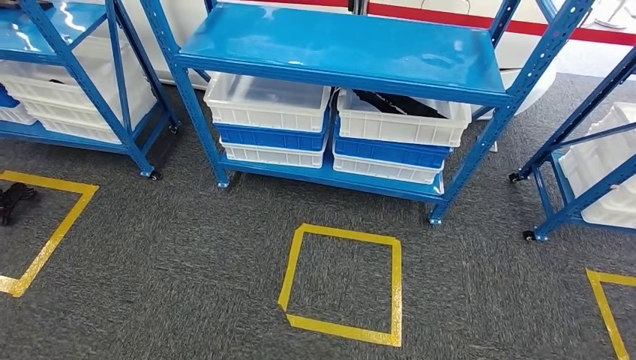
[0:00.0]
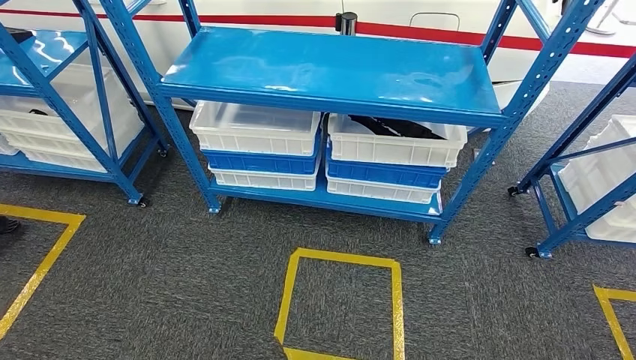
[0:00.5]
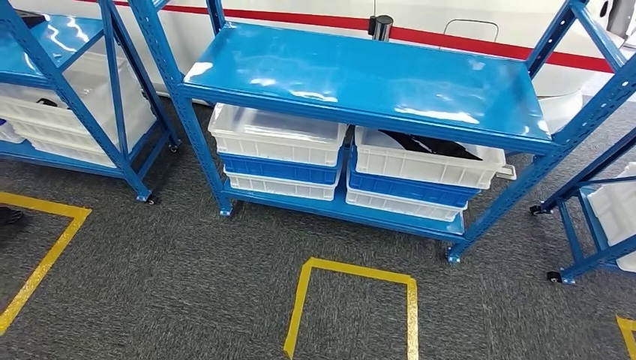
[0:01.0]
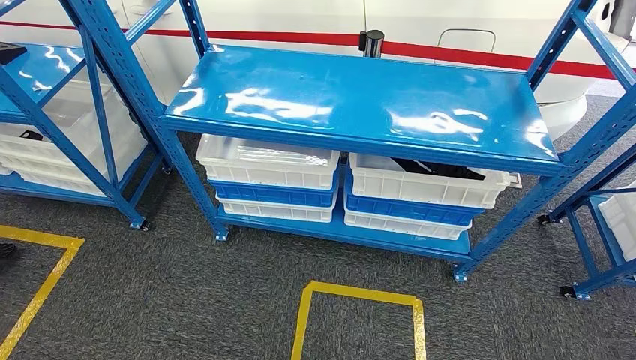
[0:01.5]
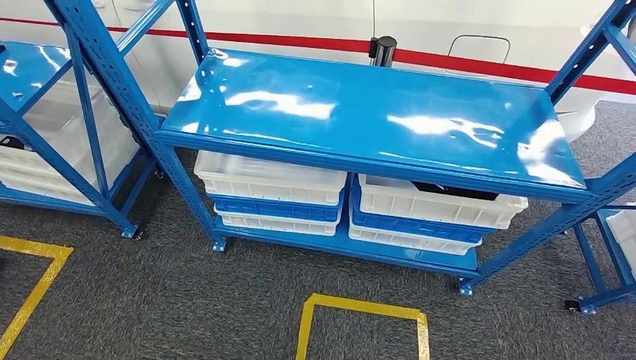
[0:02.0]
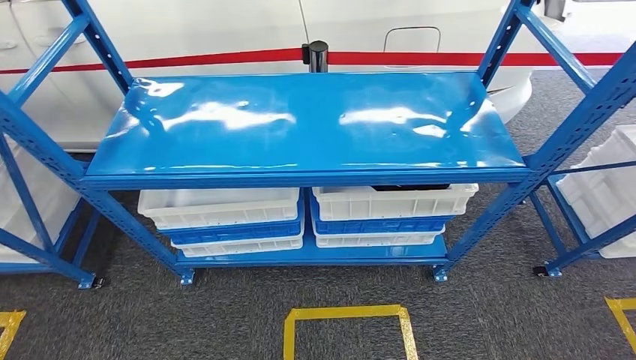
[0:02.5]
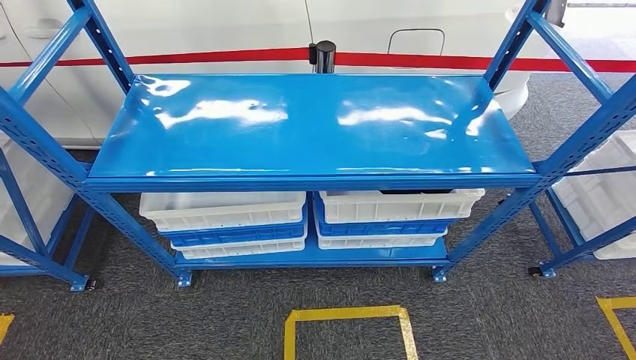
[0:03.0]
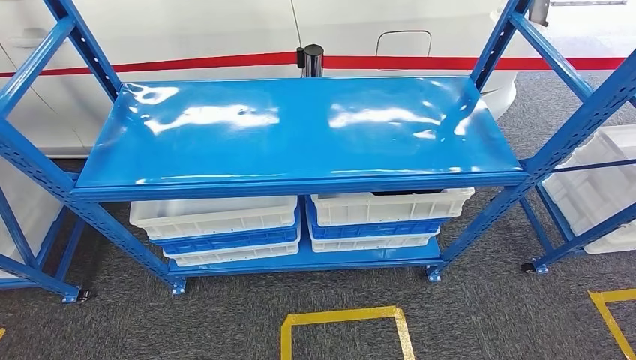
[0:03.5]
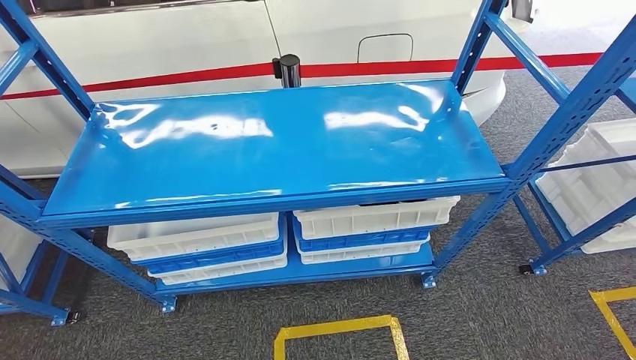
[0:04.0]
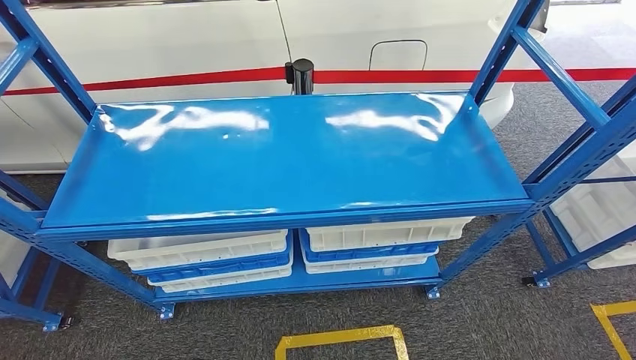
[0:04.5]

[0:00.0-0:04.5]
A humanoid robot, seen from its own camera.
Step, 0:00.0 to 0:04.5: Move to the initial position of the shelf.

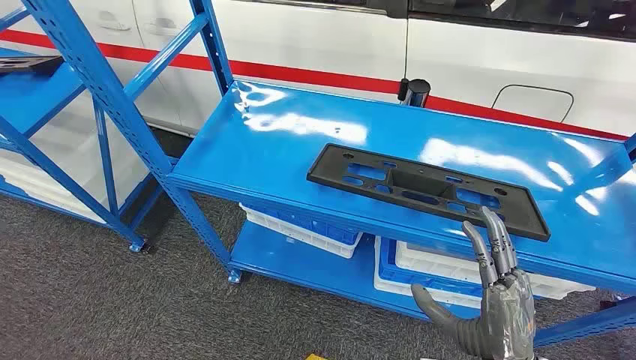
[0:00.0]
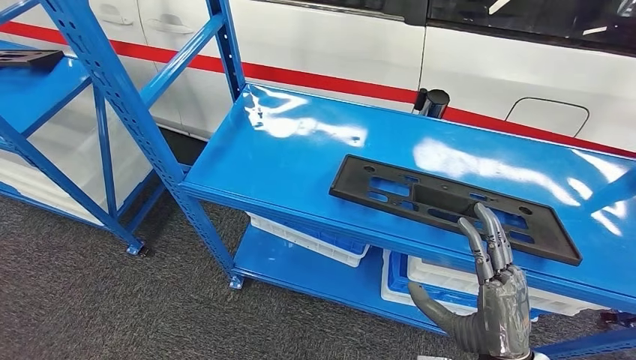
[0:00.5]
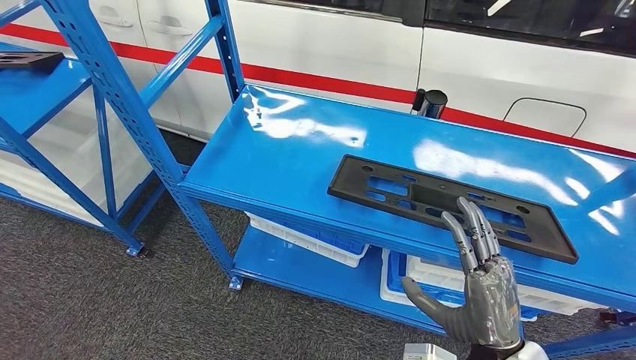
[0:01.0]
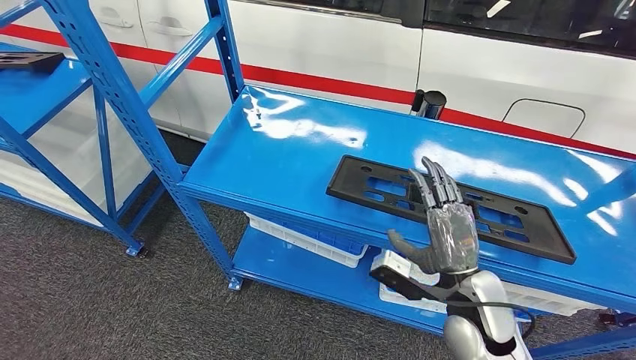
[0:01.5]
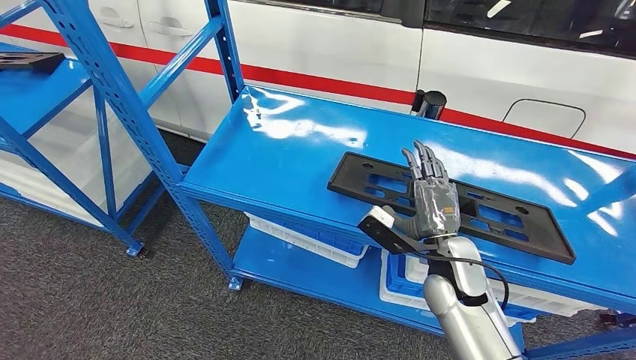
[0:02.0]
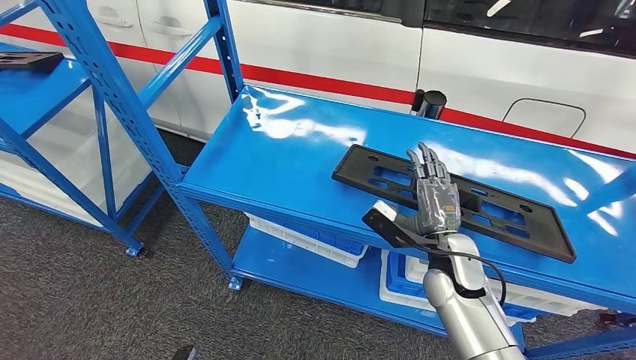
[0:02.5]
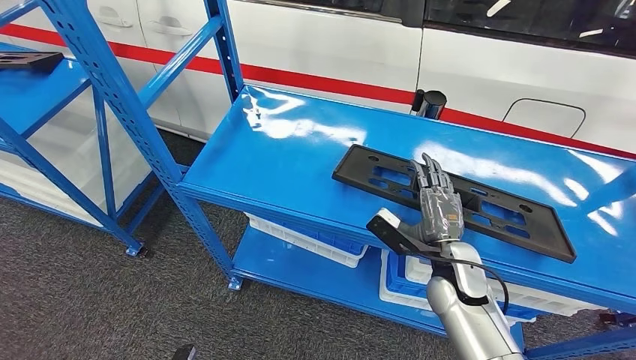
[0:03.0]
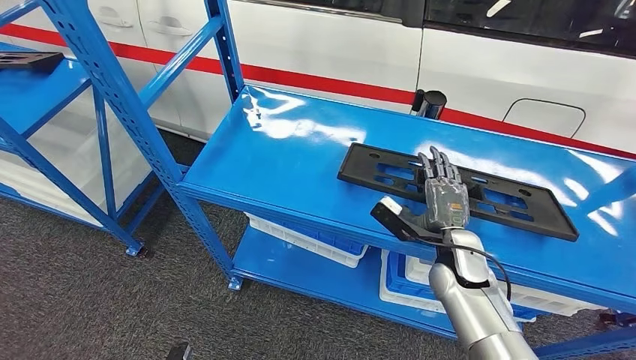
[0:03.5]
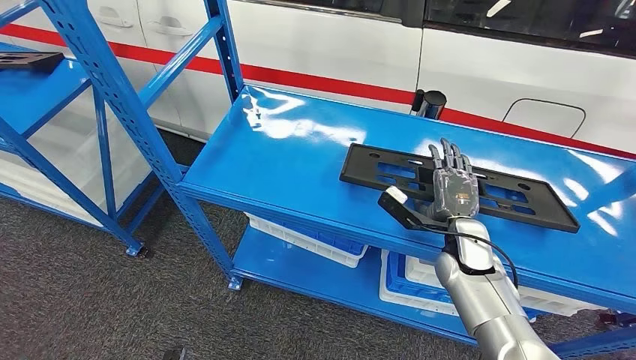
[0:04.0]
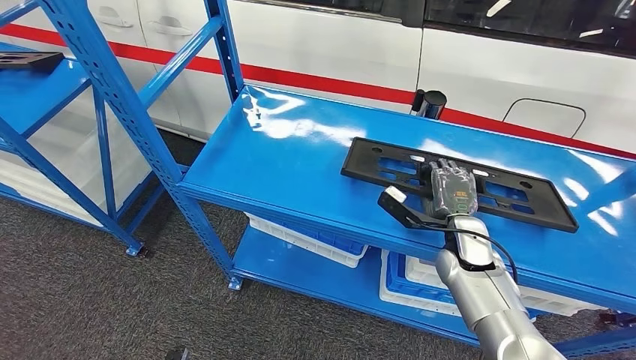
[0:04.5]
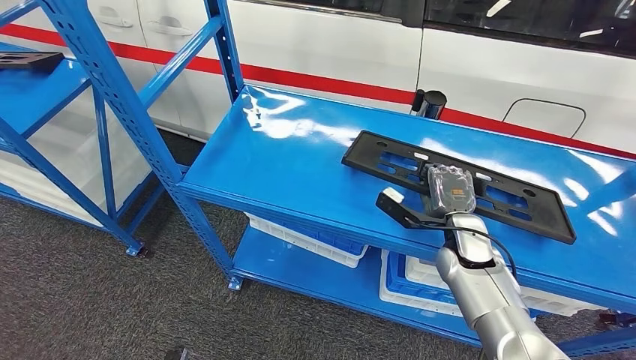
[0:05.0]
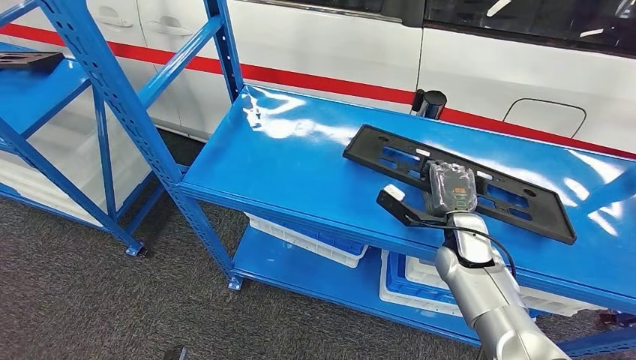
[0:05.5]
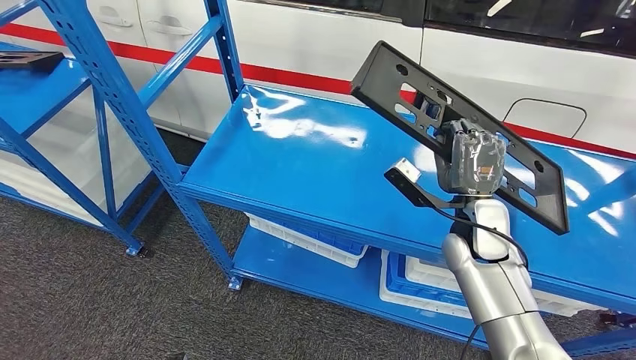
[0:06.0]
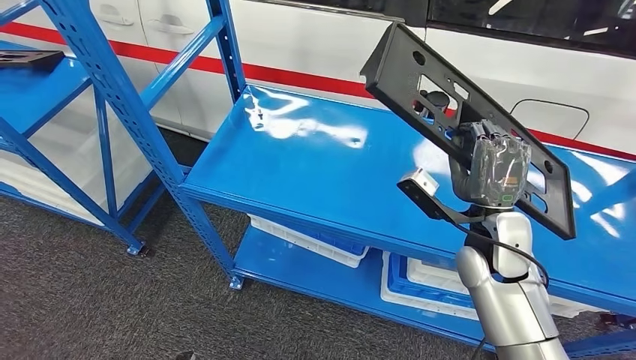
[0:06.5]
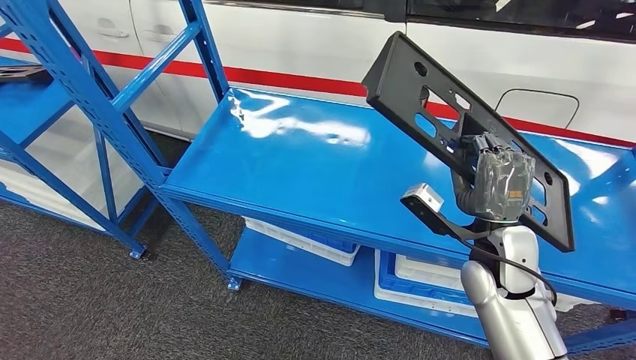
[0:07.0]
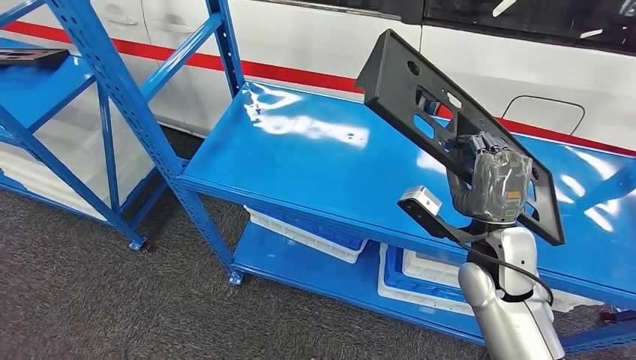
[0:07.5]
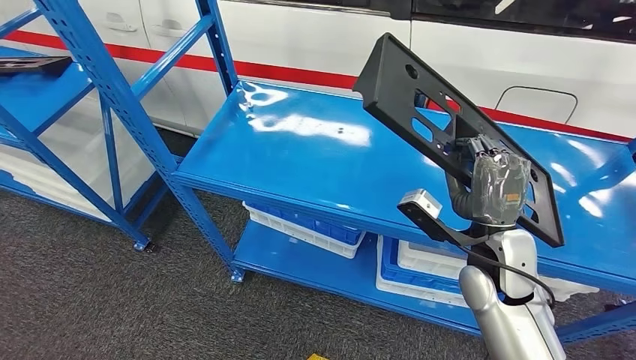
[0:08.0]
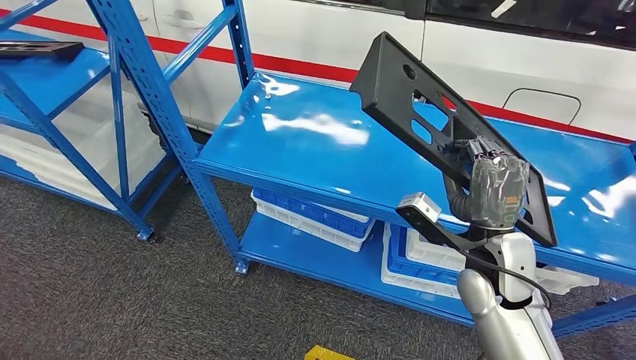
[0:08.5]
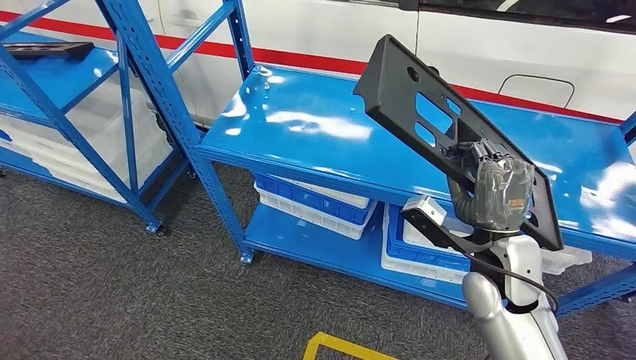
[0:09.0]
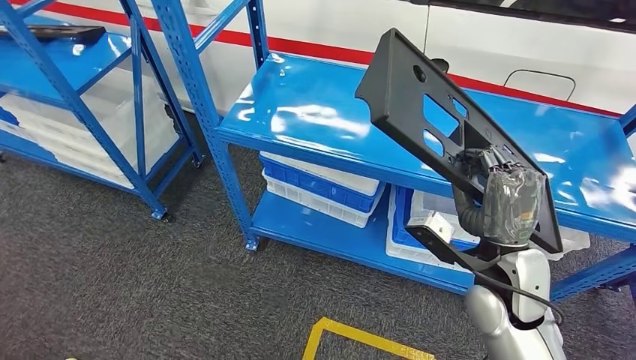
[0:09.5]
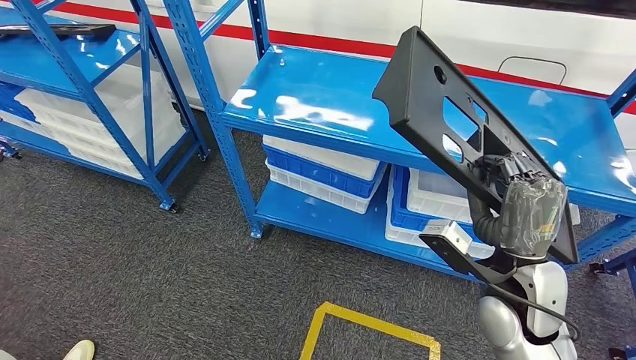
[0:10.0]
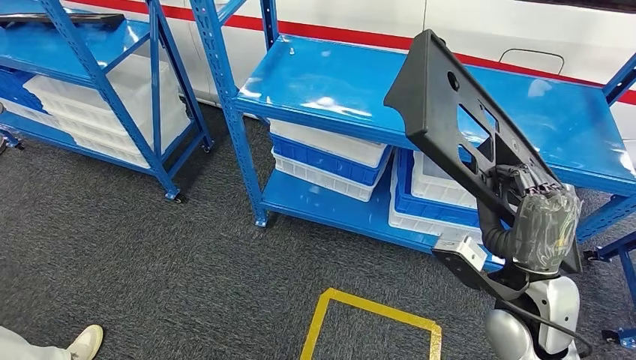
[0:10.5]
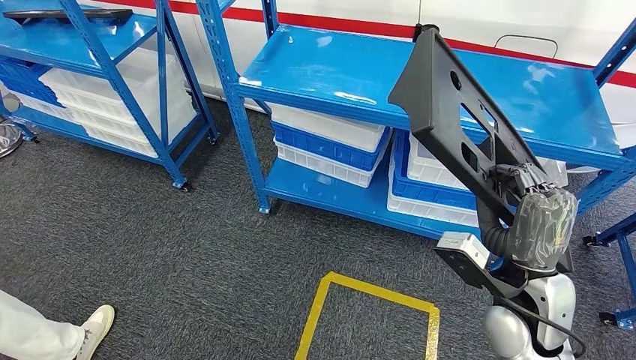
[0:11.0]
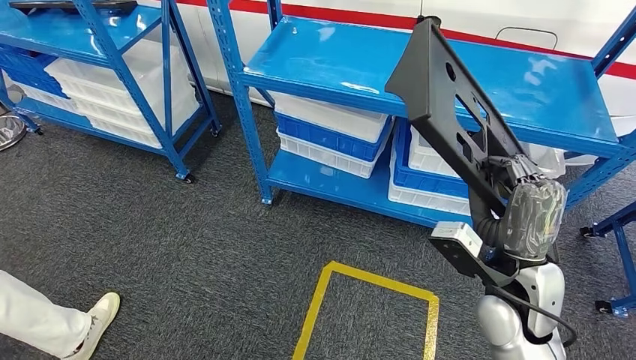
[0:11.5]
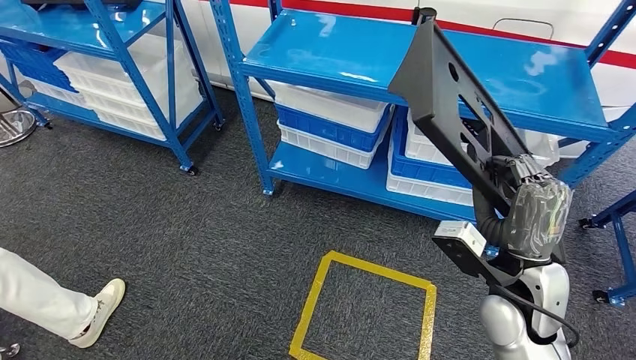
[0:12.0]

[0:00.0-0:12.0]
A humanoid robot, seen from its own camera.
Step, 0:00.0 to 0:06.0: Pick up the large material from the shelf.
0:02.0 to 0:04.0: The right hand shifts roughly 5 cm to the right and forward.
0:04.0 to 0:06.0: The right hand moves upward, roughly 5 cm.

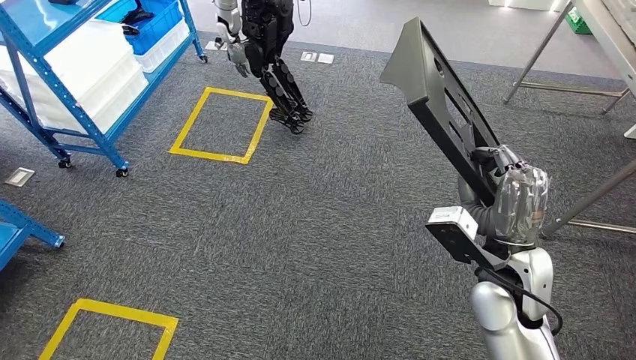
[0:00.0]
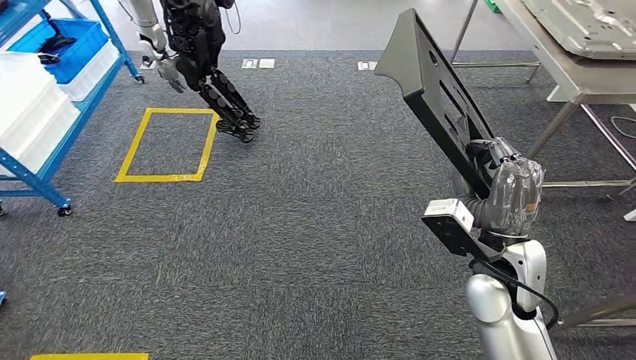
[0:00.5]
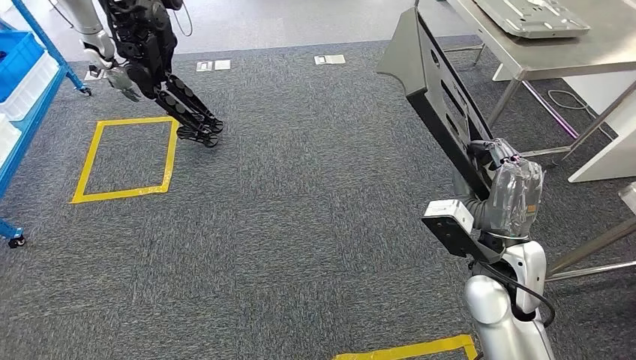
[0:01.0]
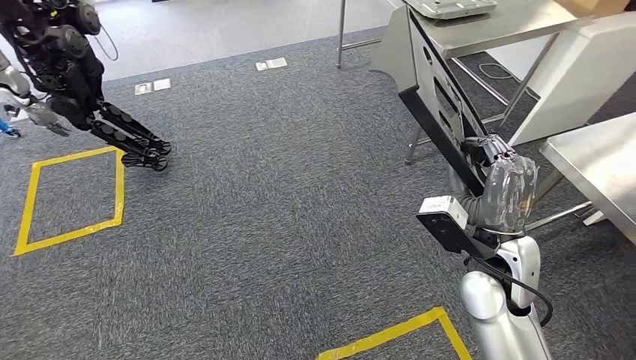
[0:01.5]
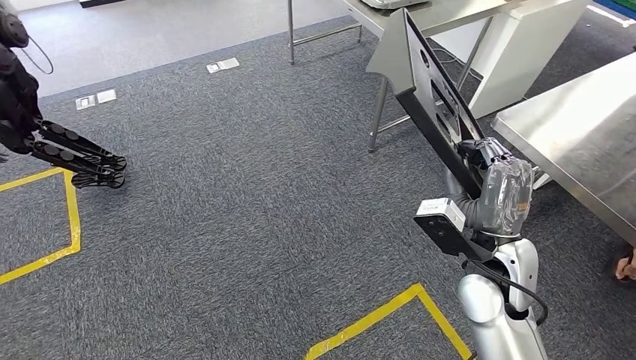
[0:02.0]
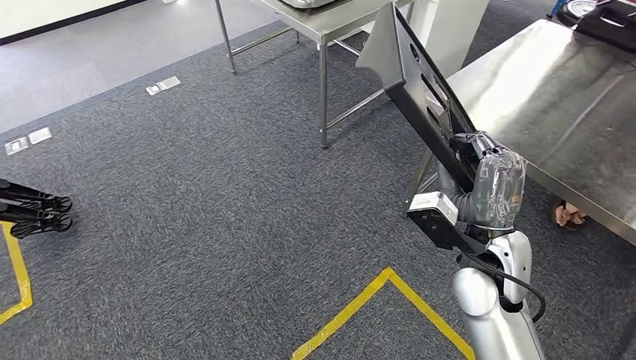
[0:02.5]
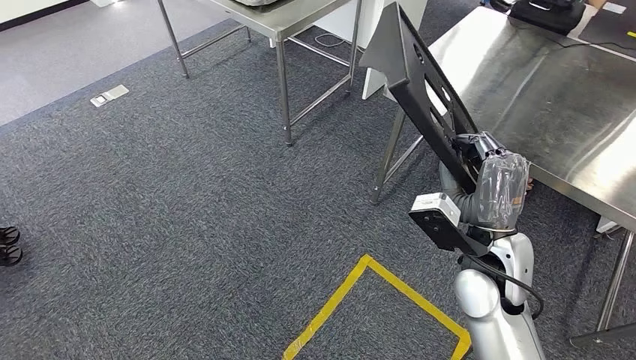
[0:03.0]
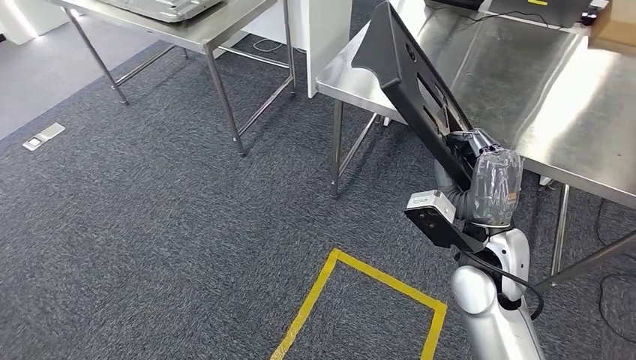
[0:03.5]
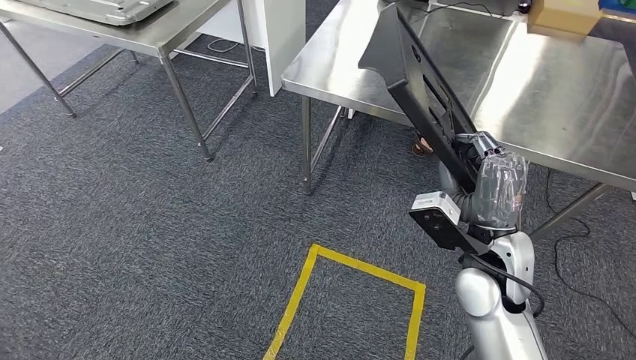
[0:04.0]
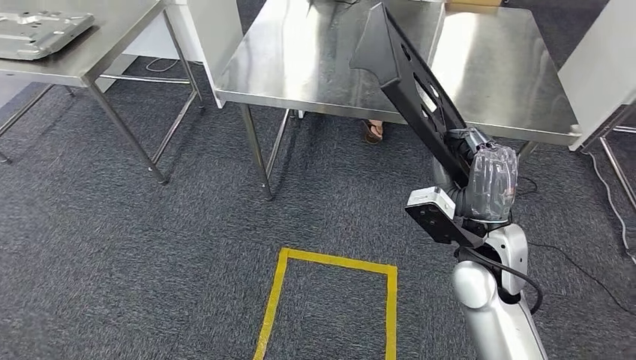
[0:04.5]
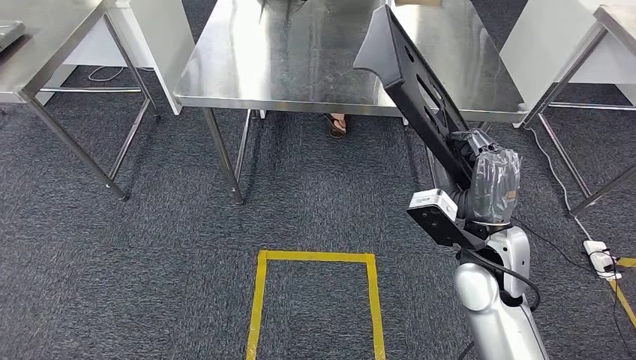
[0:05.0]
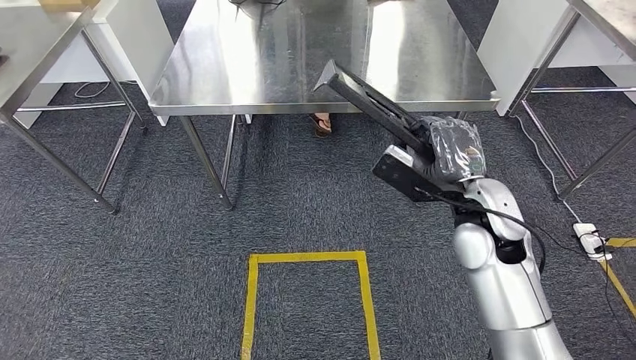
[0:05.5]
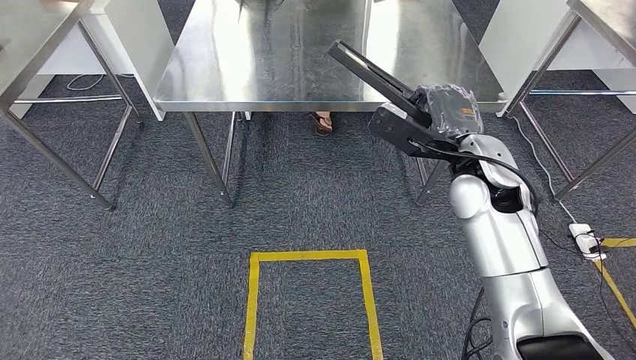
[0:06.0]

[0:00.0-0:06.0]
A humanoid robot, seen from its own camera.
Step, 0:00.0 to 0:04.0: Move the large material to the workbench.
